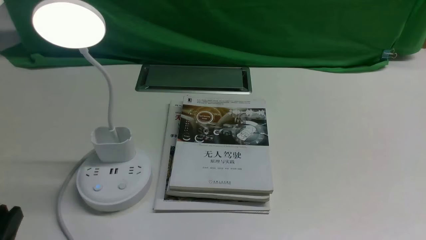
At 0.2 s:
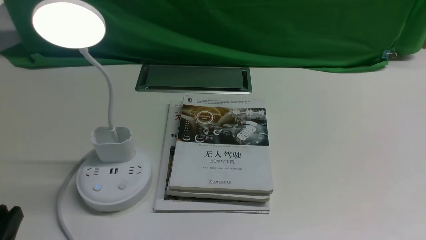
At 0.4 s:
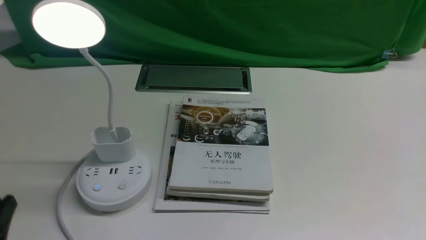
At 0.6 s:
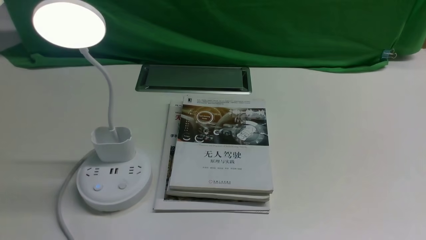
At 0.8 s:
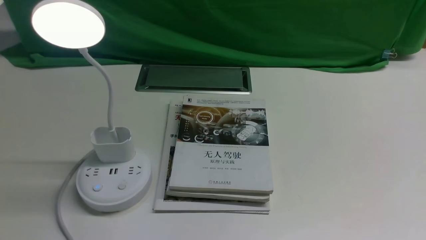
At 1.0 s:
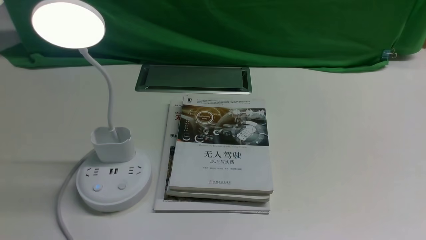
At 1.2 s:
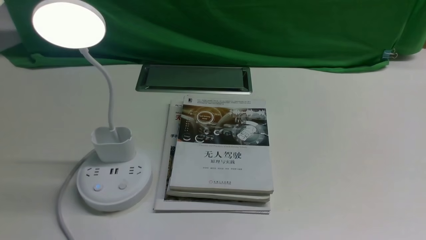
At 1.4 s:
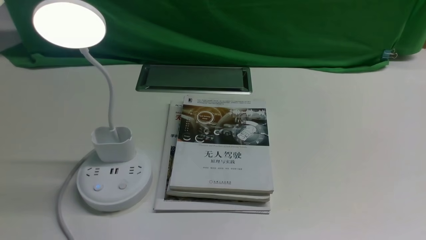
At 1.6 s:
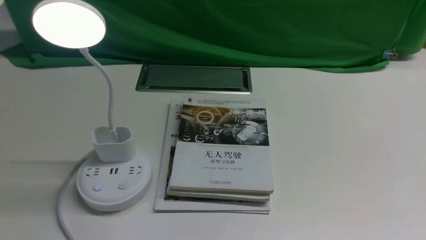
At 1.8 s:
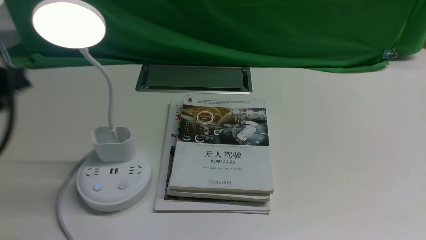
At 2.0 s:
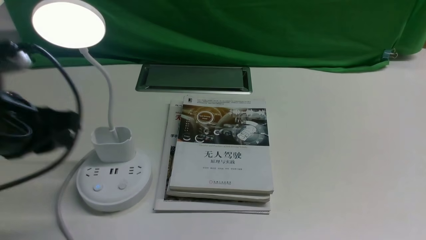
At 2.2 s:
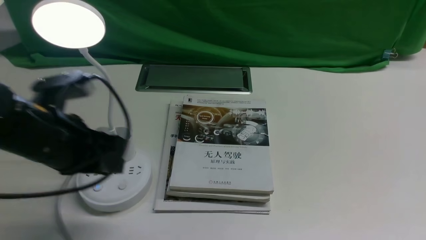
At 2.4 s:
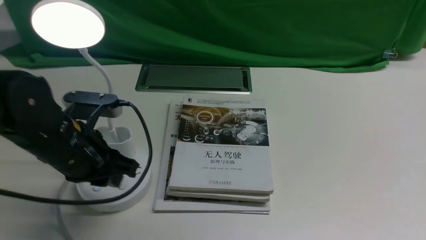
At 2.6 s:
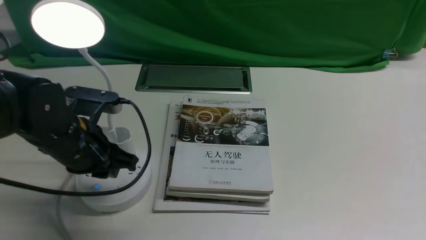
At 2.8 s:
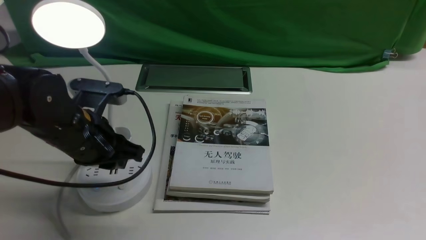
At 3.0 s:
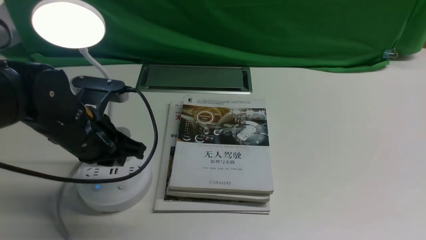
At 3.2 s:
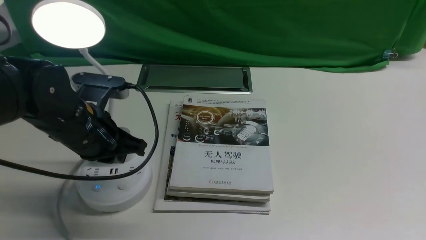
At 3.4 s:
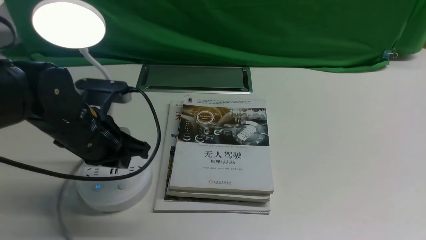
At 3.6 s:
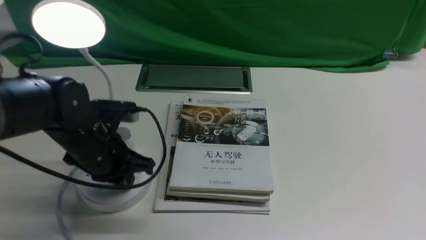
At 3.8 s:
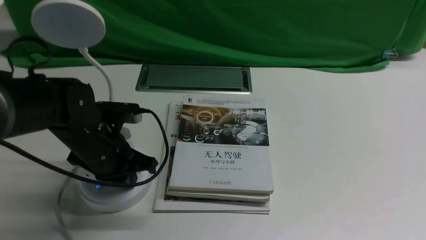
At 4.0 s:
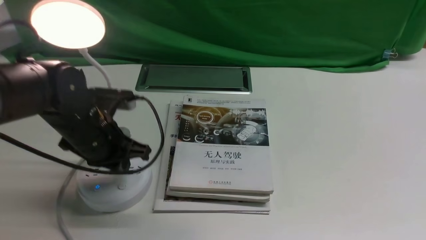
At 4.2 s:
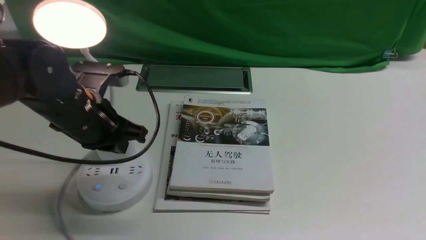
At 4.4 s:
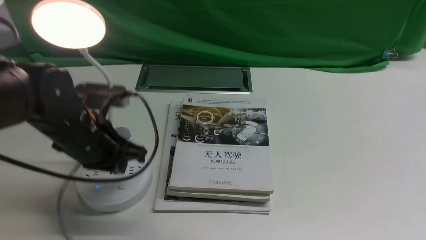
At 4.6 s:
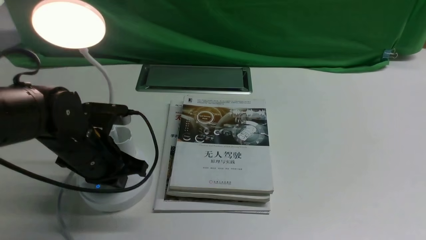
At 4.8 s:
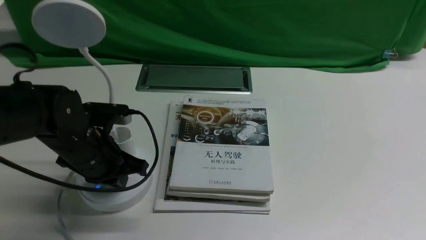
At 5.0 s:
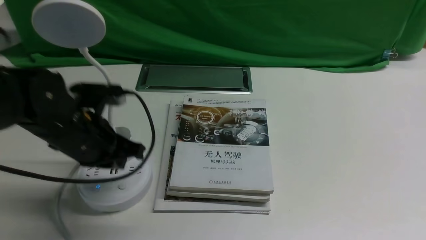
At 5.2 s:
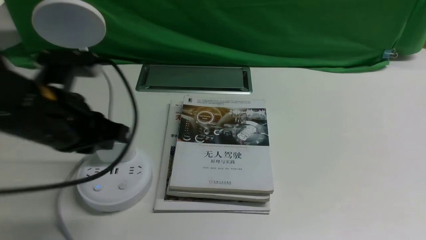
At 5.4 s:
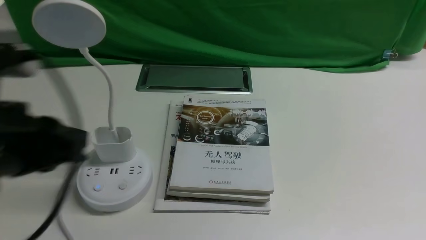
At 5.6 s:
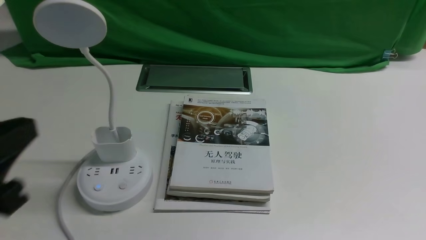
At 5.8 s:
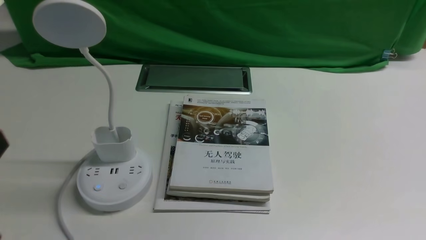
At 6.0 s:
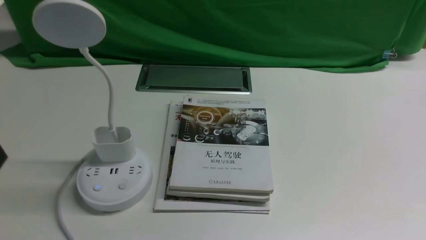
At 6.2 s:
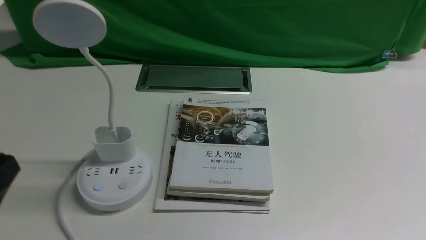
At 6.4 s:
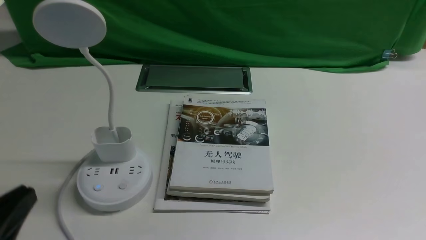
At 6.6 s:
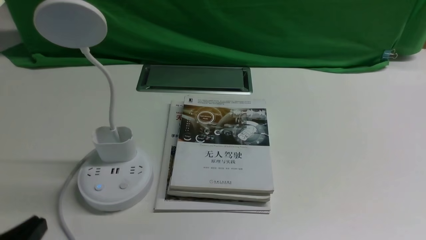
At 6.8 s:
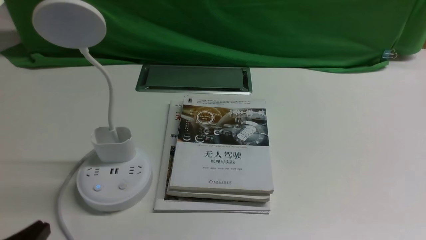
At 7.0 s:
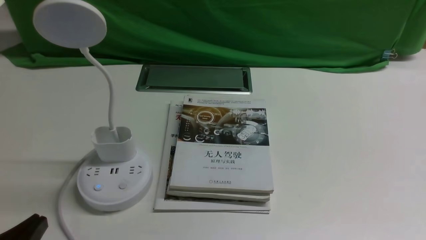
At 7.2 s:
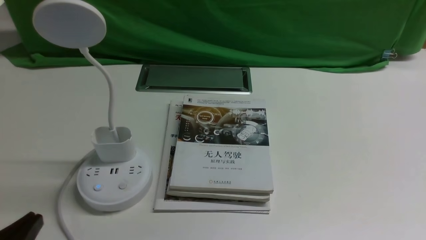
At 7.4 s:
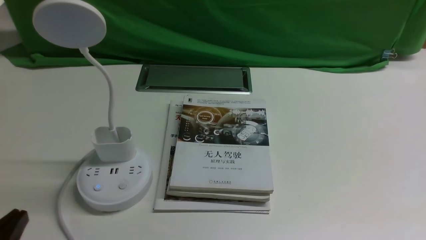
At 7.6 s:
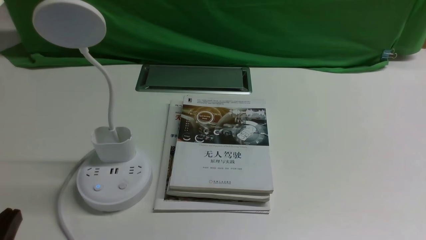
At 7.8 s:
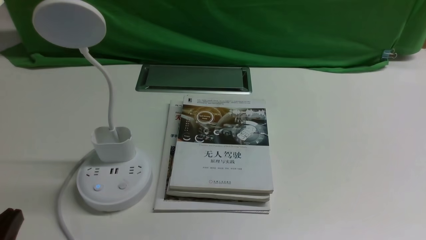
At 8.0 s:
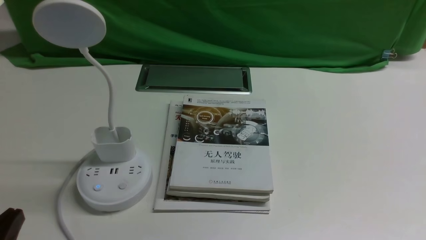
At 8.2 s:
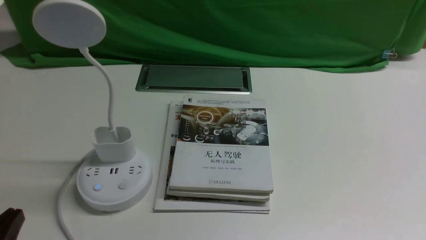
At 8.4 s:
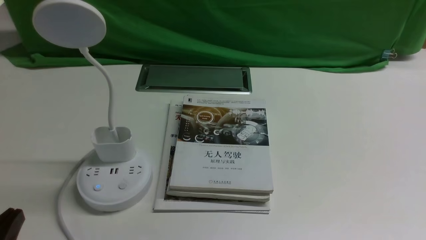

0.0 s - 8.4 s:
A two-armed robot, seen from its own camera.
Task of the whole recording: turn off the desk lamp on the white desktop by hand.
Step, 0.0 s - 5.0 s: use the left arm to press the button switch on the lamp holder.
0.0 s - 1.4 s: The left gripper heads upward, covering roughly 20 cm.
1.4 s - 2.8 s: The left gripper travels forward and downward by about 25 cm.
2.8 s - 4.2 s: The left gripper closes up.
4.2 s - 5.6 s: The left gripper moves backward and upward, roughly 20 cm.
5.6 s - 7.0 s: The left gripper is displaced downward by approximately 15 cm.
7.0 s - 8.4 s: There are only small adjustments of the grippers.
